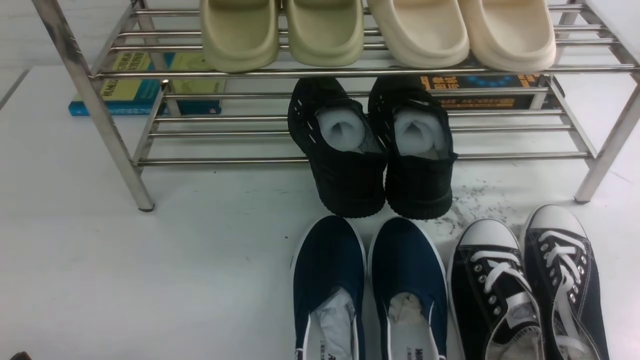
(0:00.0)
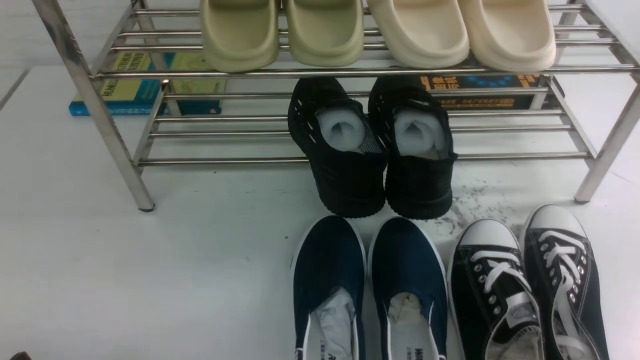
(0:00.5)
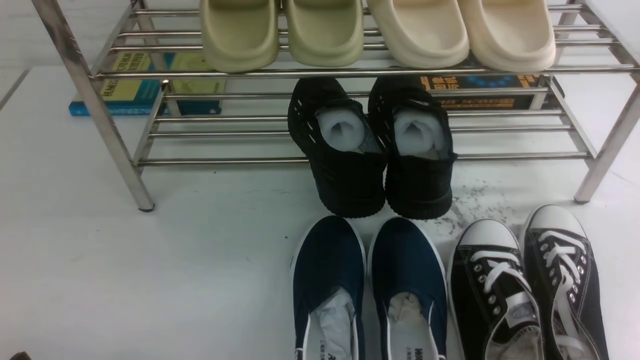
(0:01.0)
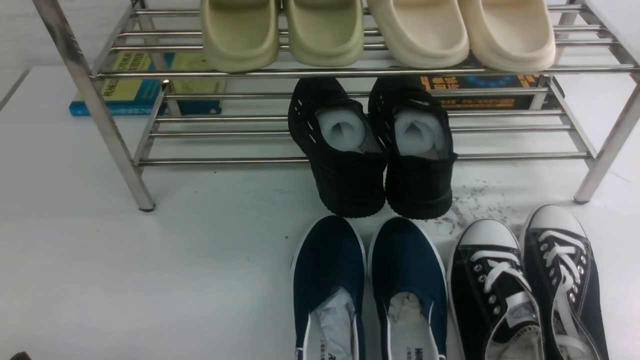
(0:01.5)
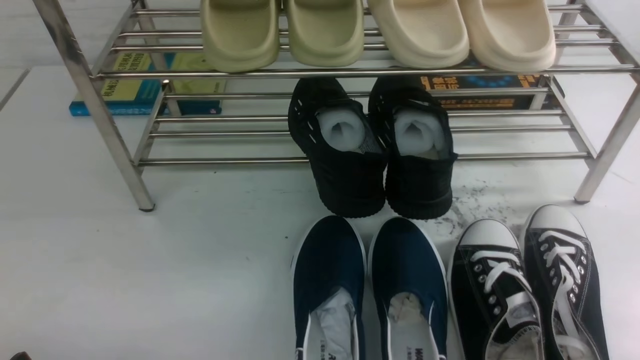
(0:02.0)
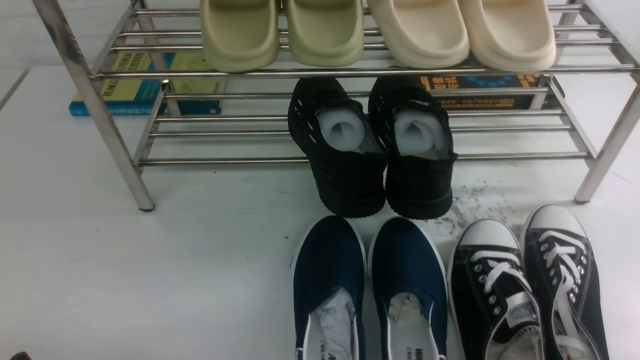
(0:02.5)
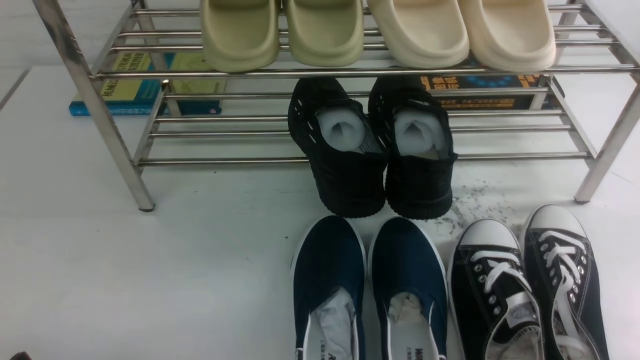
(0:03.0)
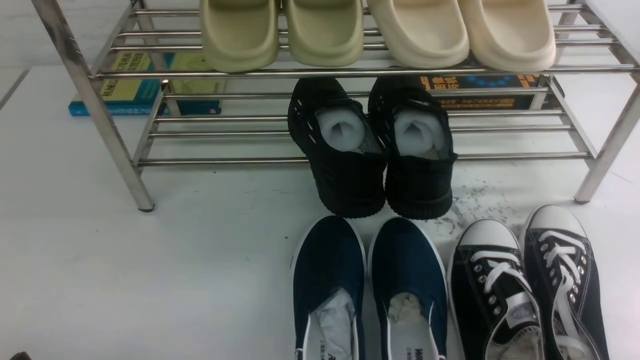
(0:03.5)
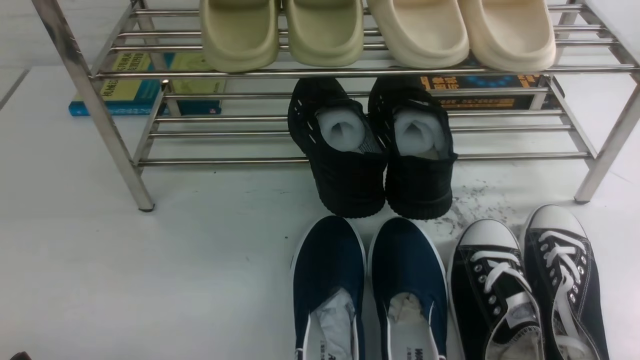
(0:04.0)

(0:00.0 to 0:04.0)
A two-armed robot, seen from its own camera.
0:02.0 - 0:04.0: Neither gripper changes place.
